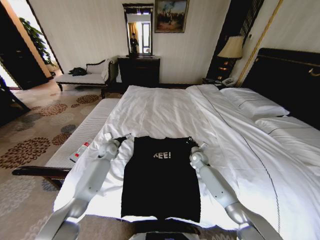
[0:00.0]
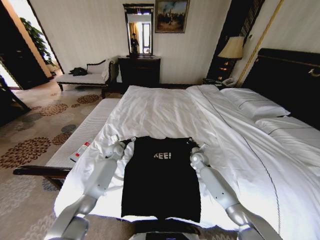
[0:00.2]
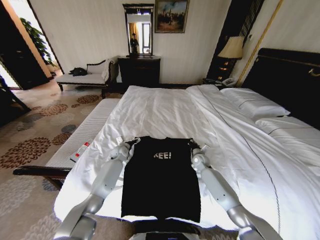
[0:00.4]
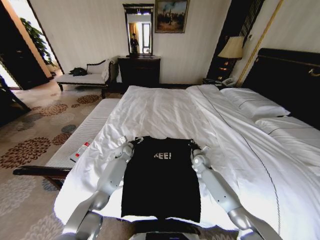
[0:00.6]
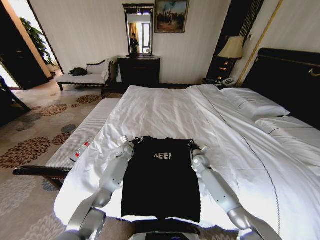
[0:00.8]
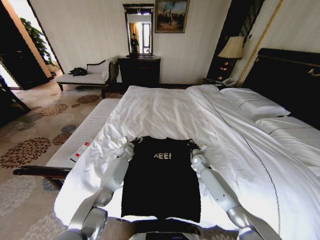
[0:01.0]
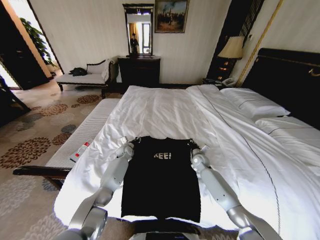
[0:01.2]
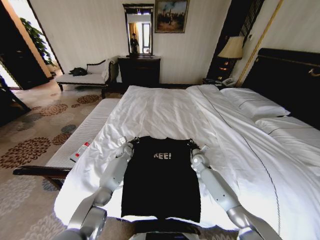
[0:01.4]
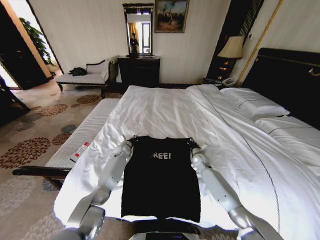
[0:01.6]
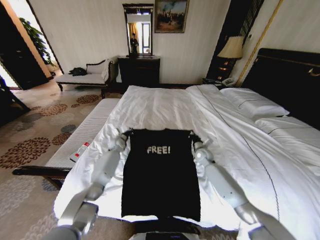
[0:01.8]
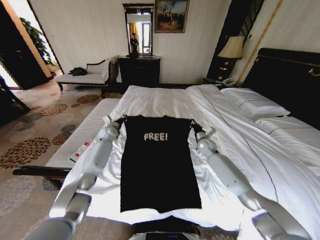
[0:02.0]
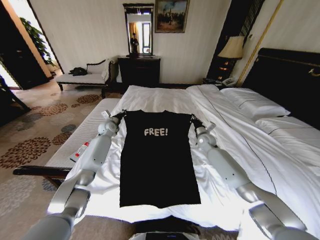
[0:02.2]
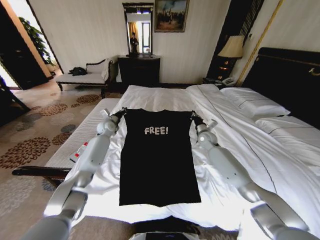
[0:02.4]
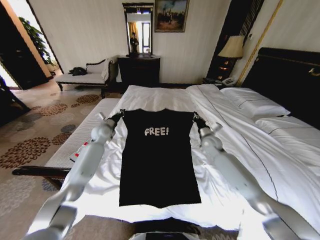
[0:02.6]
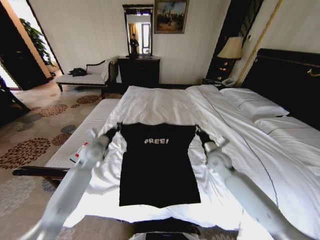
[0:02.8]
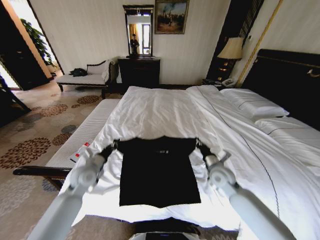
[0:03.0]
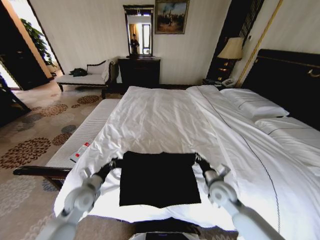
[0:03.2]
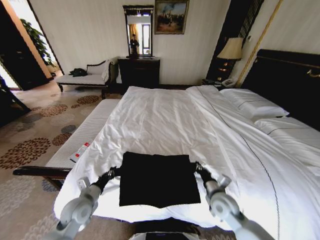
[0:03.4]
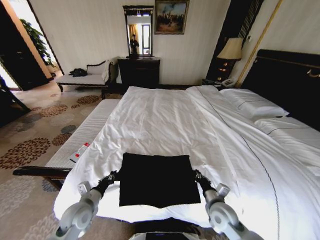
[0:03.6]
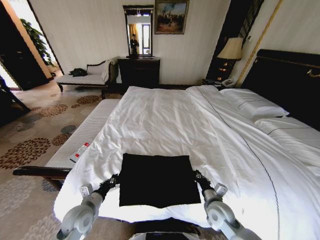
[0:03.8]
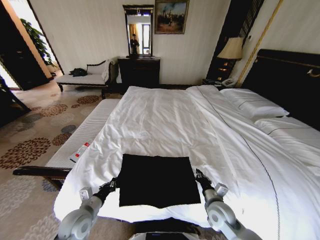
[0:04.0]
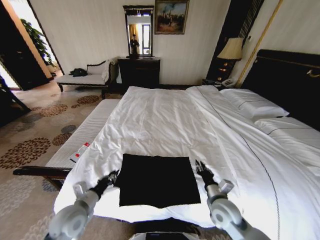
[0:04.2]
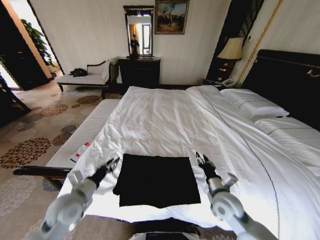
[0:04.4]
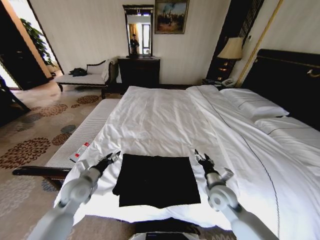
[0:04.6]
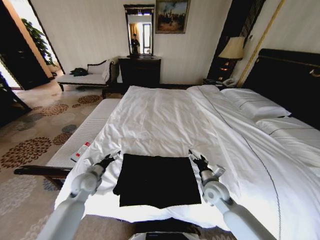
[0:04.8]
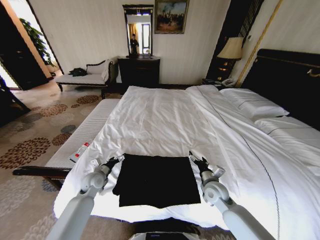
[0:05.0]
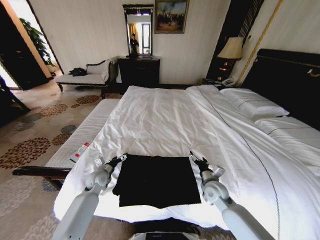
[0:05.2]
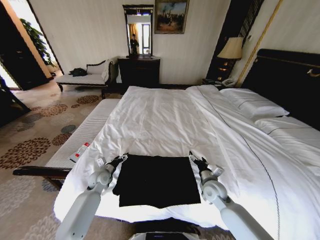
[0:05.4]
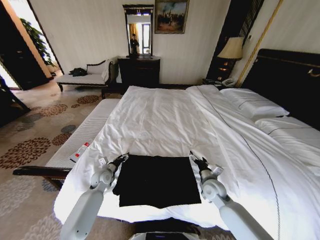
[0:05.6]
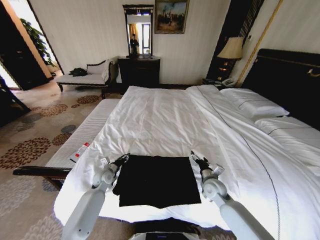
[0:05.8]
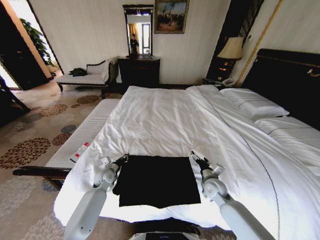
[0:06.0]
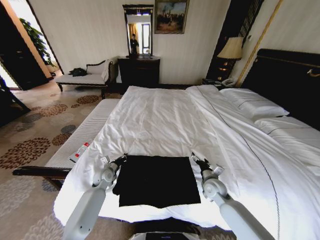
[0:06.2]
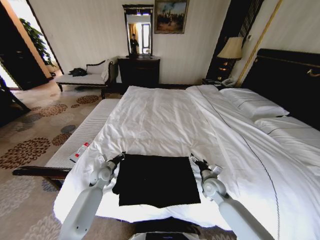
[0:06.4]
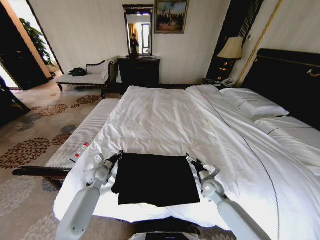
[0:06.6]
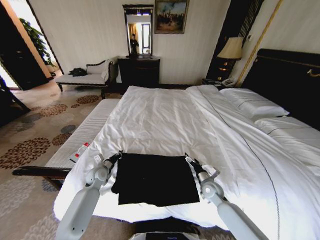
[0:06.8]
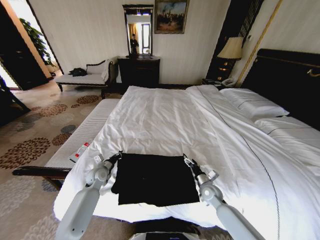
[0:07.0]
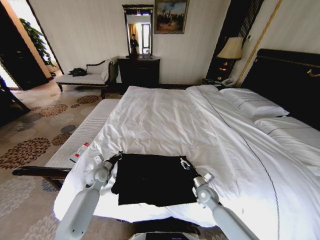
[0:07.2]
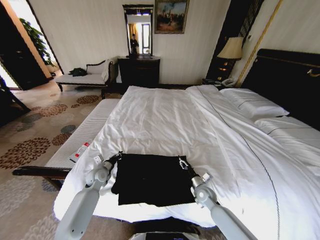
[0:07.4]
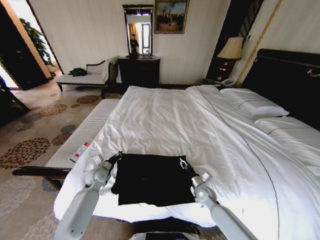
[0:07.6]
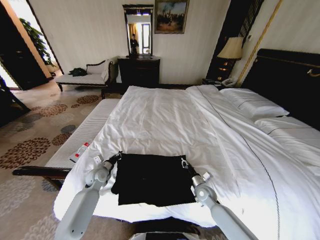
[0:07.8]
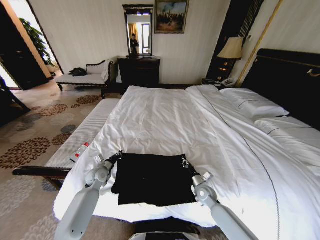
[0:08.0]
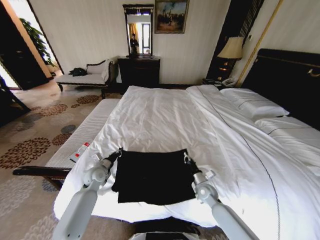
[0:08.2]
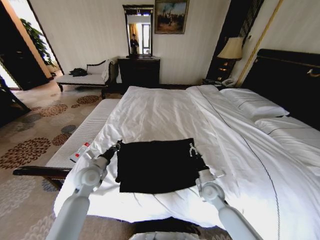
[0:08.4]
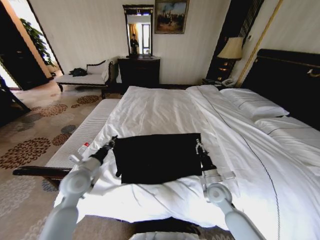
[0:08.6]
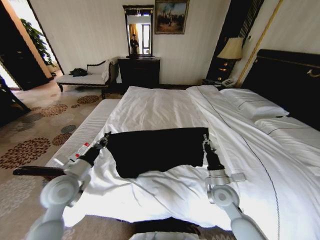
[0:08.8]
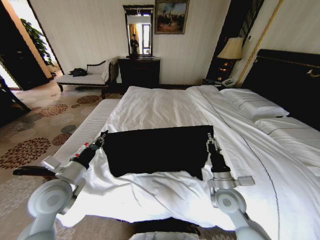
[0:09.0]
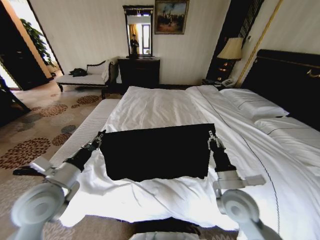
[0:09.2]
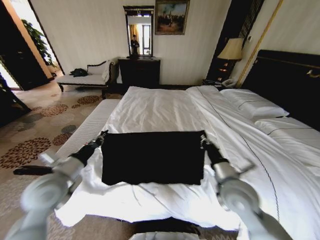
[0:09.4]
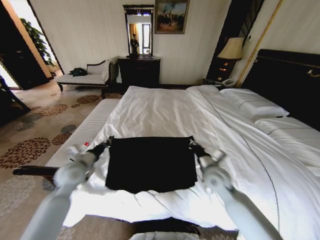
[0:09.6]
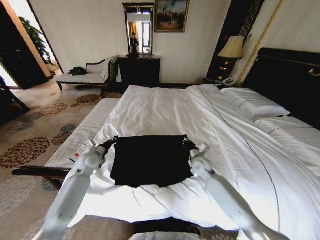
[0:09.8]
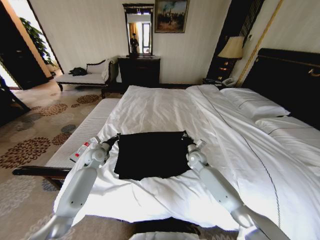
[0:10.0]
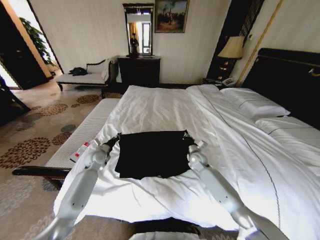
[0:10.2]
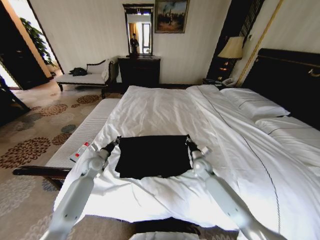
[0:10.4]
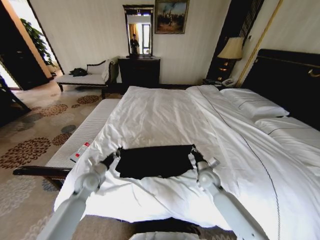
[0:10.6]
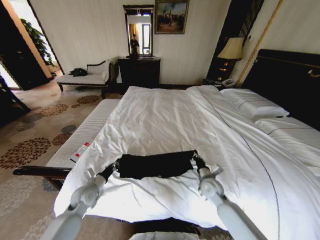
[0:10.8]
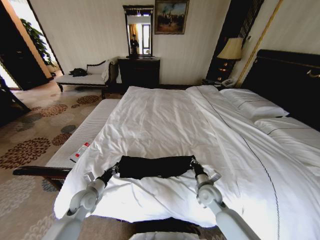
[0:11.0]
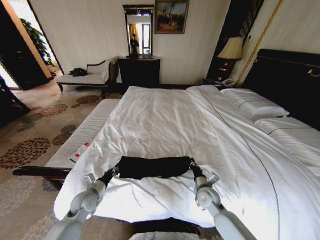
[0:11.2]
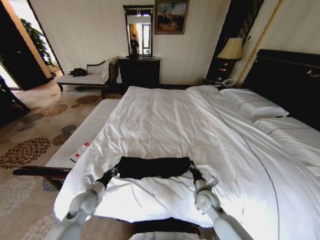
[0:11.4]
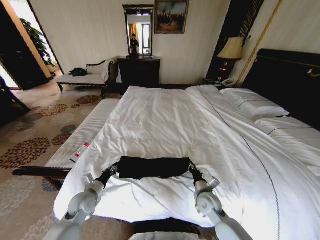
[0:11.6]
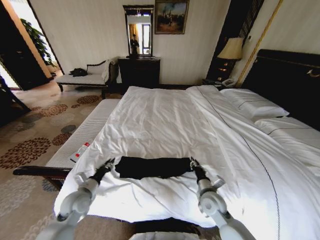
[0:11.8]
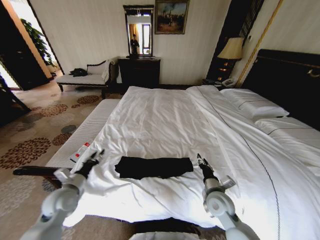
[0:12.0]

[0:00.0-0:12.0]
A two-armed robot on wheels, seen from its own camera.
Task of the whole recording: Fold the clothes on the bed.
0:00.0 to 0:01.6: The left gripper heads downward and to the right, covering roughly 10 cm, and closes its fingers.
0:01.6 to 0:03.0: The left gripper goes about 25 cm backward, upward and to the left. The right gripper heads backward and upward, covering about 15 cm.
0:03.0 to 0:04.4: Both grippers move backward, roughly 10 cm. The right gripper opens up, while the left gripper opens up.
0:04.4 to 0:06.0: The left gripper goes approximately 20 cm forward and downward, and opens, then closes once more. The right gripper heads forward and downward, covering approximately 10 cm, and opens.
0:06.0 to 0:07.6: The right gripper is displaced downward by roughly 10 cm, and closes its fingers.
0:07.6 to 0:09.0: Both grippers travel together upward and backward, about 20 cm. The right gripper closes up.
0:09.0 to 0:10.4: The grippers both shift forward and downward by some 20 cm.
0:10.4 to 0:12.0: Both grippers move backward, approximately 15 cm. The left gripper opens its fingers; the right gripper opens up.

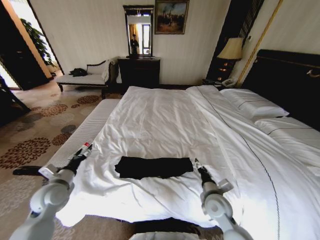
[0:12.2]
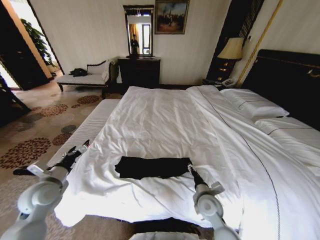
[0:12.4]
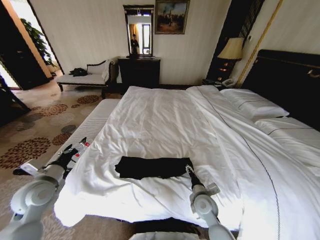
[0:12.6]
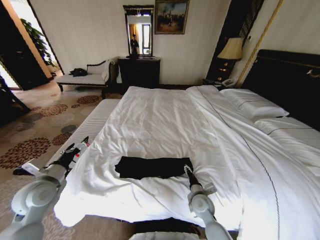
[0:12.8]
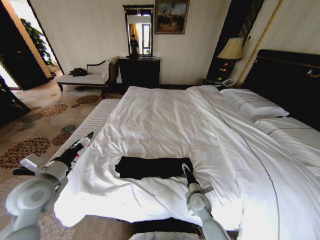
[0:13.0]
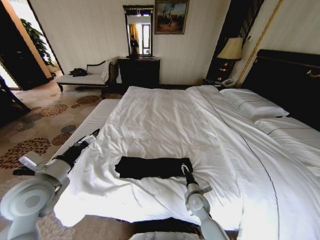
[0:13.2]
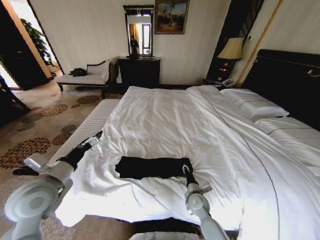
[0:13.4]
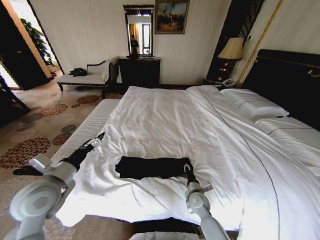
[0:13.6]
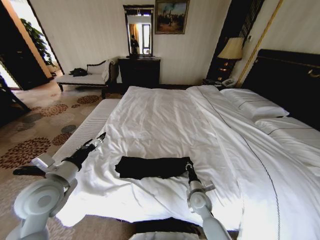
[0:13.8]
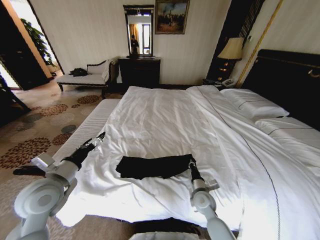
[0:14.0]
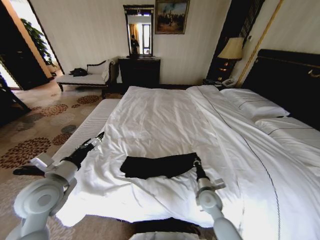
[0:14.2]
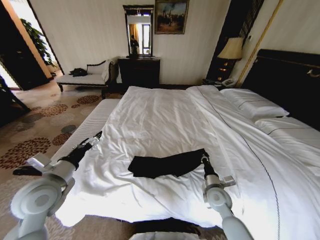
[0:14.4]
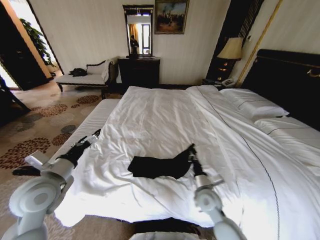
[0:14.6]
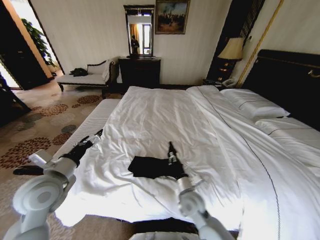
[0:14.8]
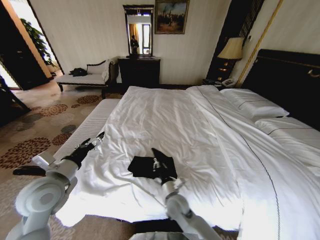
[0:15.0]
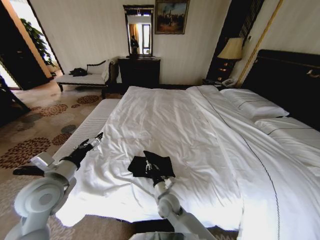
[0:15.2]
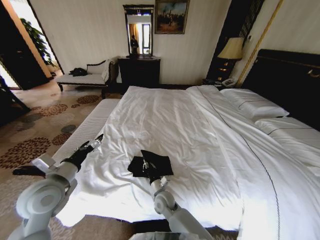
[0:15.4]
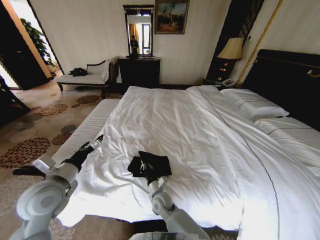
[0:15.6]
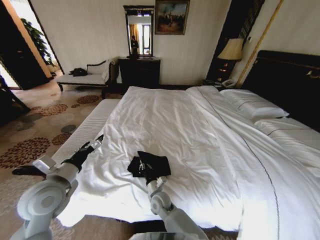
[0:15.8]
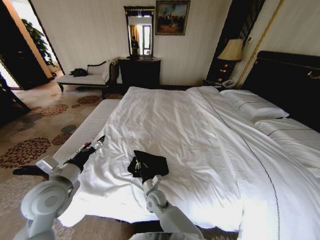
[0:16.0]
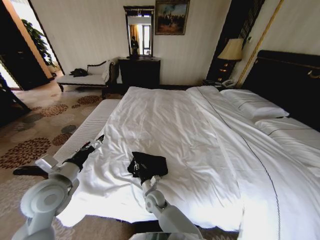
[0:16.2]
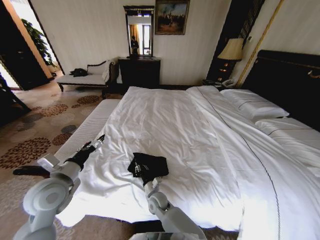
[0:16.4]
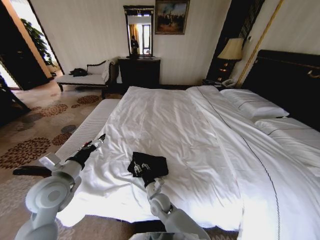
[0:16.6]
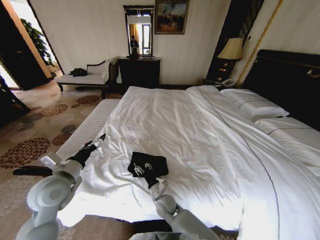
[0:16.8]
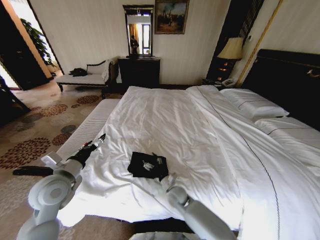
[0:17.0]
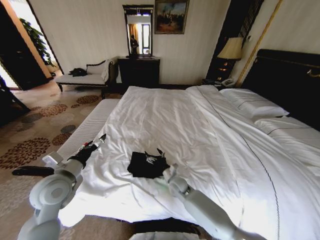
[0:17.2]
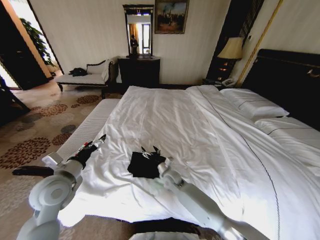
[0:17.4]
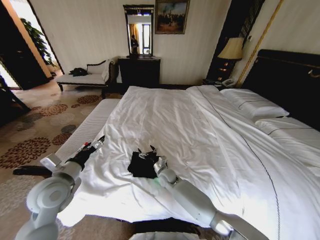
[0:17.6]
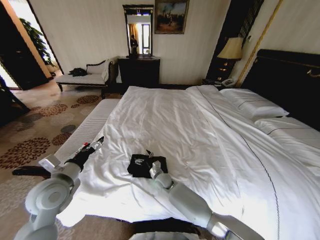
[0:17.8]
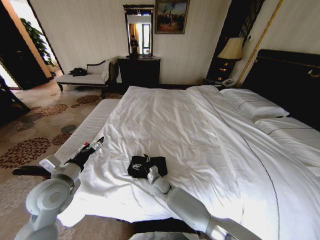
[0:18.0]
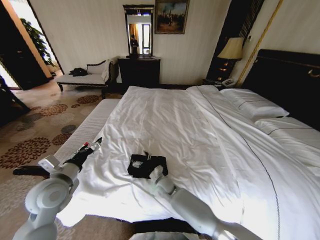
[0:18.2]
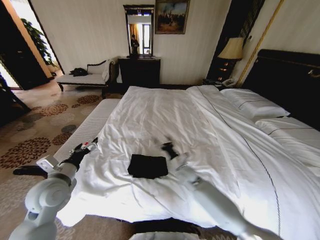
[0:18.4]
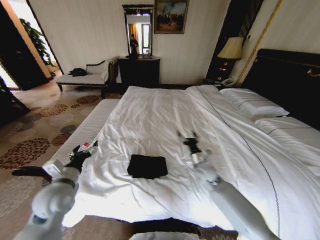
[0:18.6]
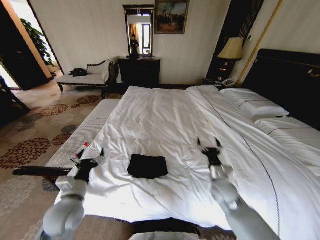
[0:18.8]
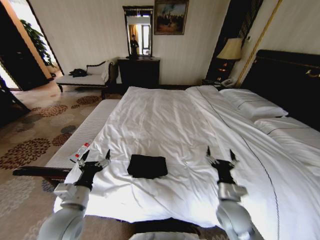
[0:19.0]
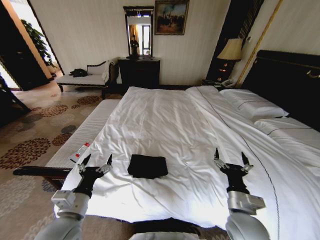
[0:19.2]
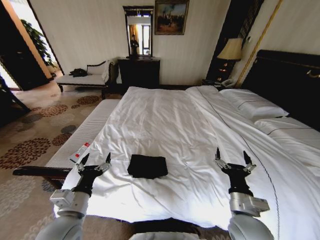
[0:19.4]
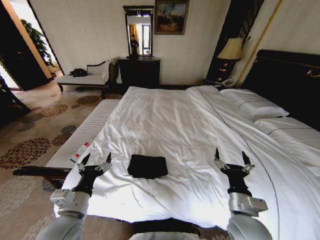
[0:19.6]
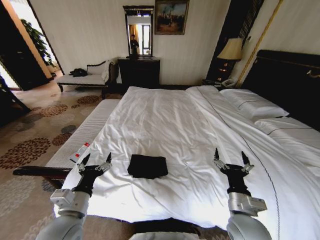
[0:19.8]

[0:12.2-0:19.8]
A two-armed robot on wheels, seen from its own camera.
Task of the whole recording: Fold the clothes on the bed.
0:12.2 to 0:13.8: The right gripper shifts some 10 cm downward, and closes, while the left gripper heads upward and to the right, covering approximately 15 cm.
0:13.8 to 0:15.2: The right gripper moves to the left, approximately 15 cm.
0:15.2 to 0:16.8: The right gripper opens up.
0:16.8 to 0:18.2: The right gripper moves forward, some 10 cm, and opens up.
0:18.2 to 0:19.8: The right gripper is displaced to the right, backward and upward by some 35 cm, while the left gripper shifts some 10 cm backward and to the right.
